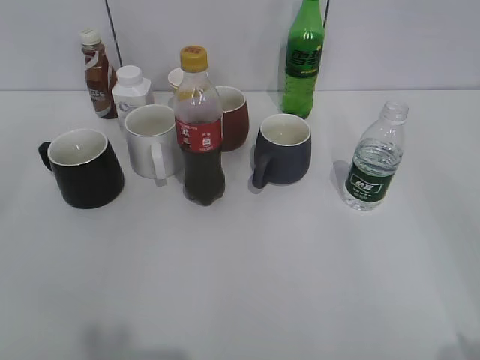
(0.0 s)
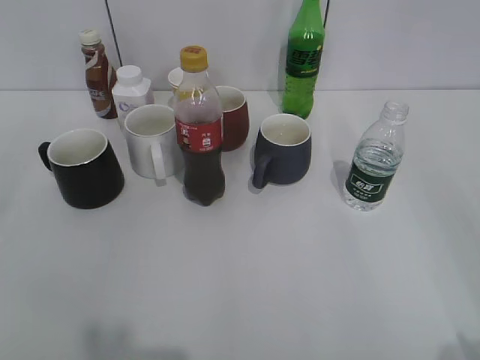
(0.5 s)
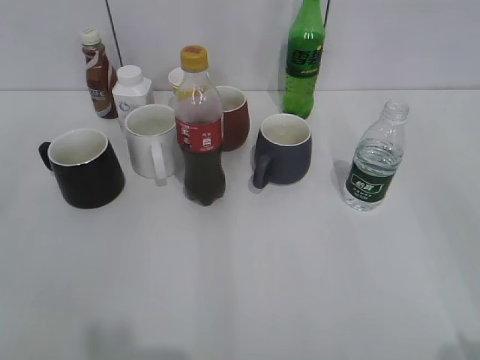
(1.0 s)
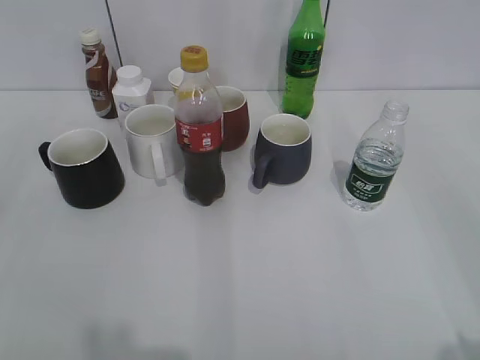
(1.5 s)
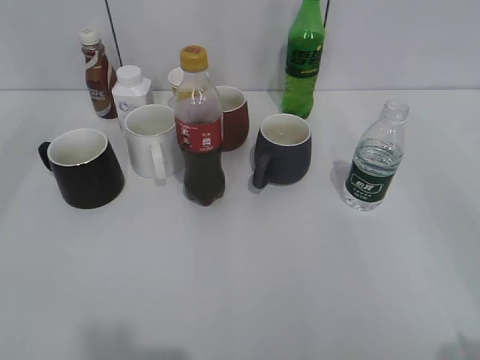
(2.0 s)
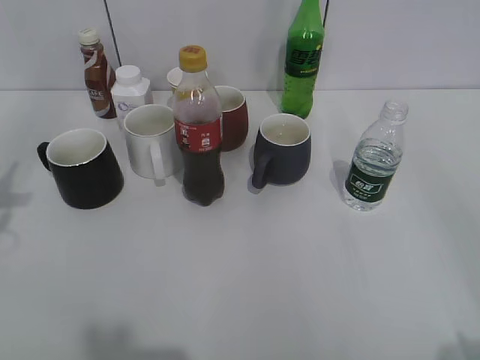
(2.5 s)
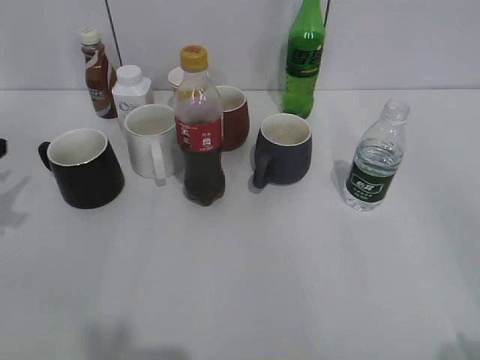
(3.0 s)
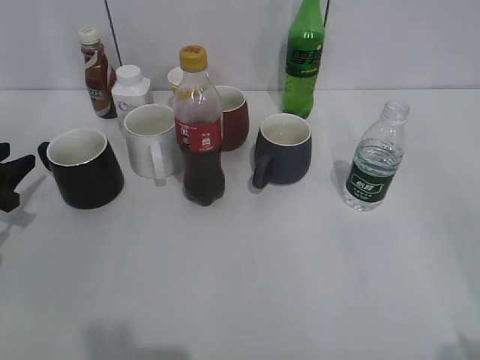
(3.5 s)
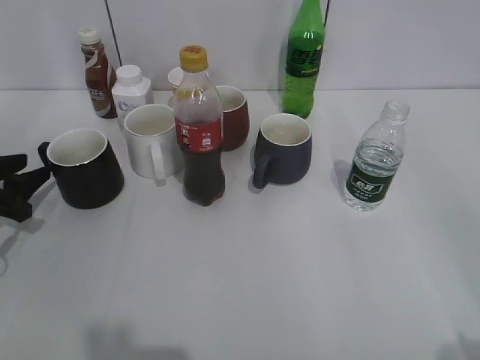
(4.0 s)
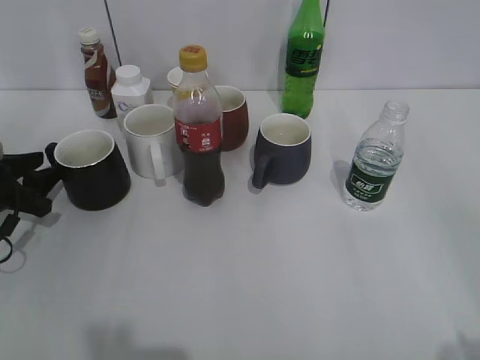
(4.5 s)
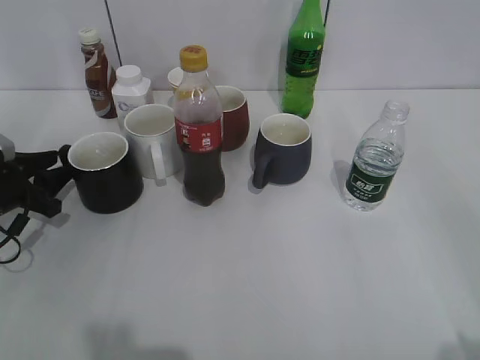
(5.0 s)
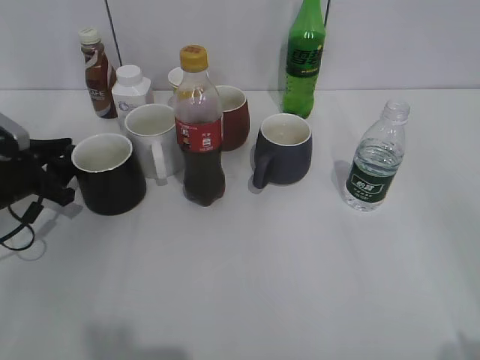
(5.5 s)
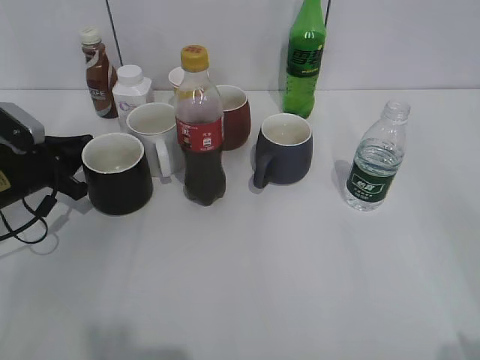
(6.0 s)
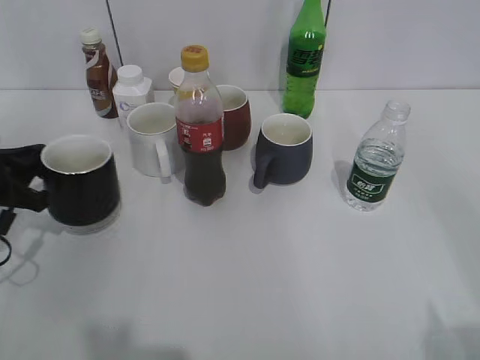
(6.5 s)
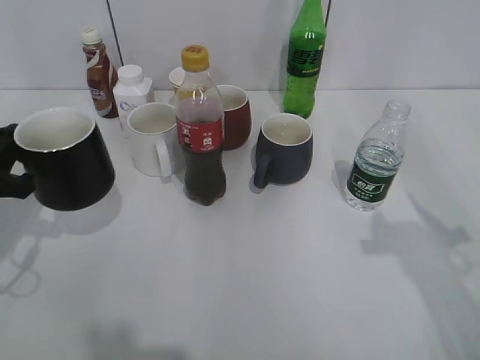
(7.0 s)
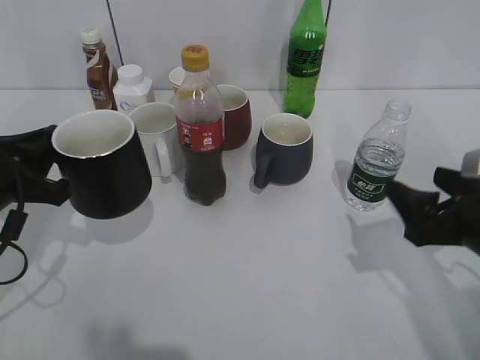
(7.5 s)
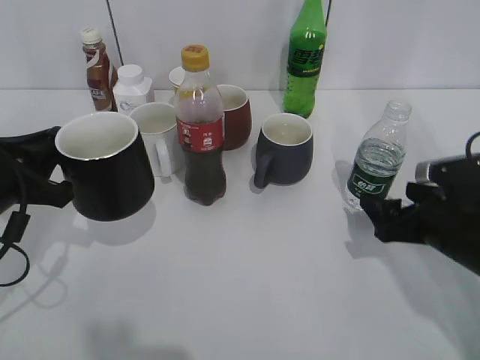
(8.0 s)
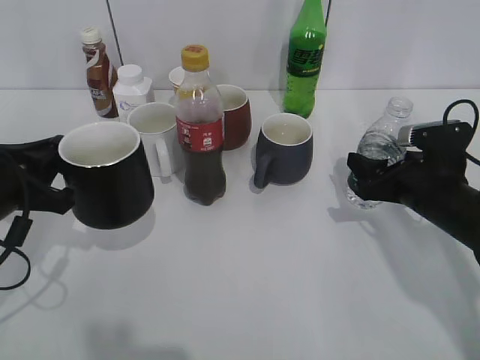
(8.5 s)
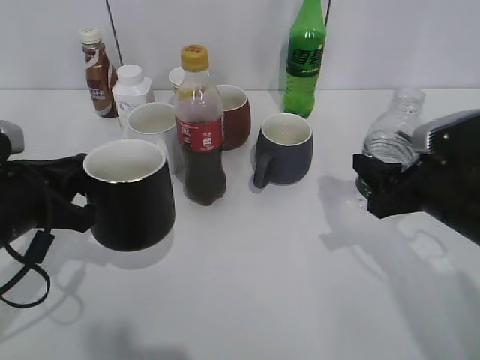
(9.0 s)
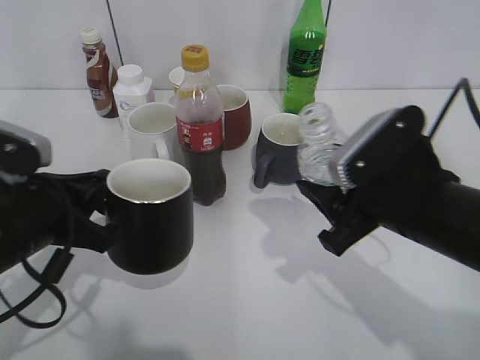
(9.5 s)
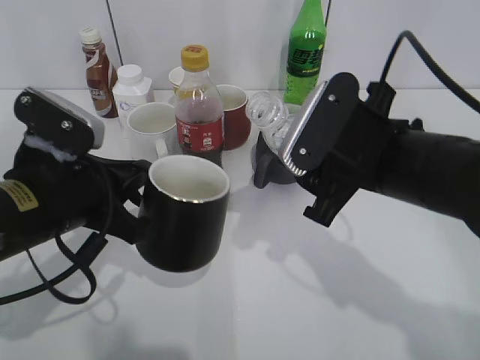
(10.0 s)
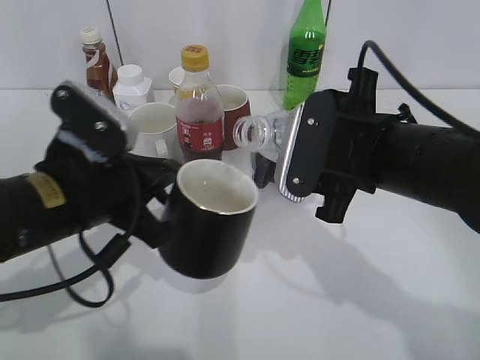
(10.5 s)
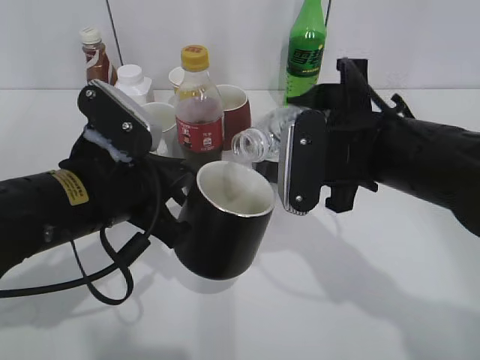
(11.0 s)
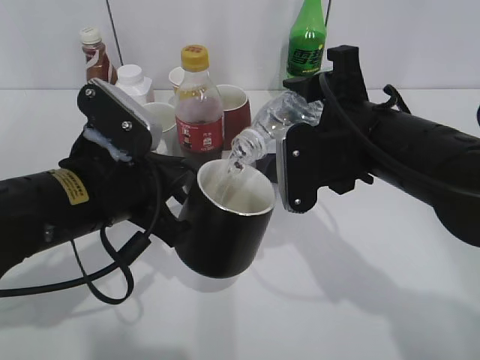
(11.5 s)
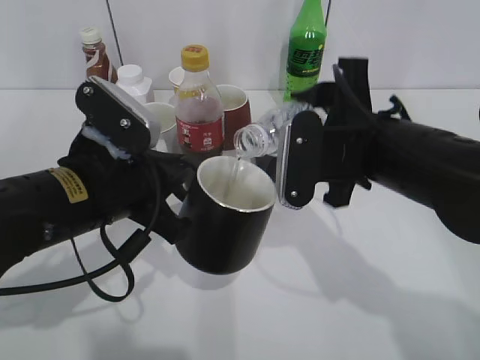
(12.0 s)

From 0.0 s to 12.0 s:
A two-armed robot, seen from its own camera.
Step, from 1.5 s to 6.0 s: Grasp the black cup with left gripper.
Step, from 6.5 s to 7.0 s: Lift the black cup with left gripper.
Step, from 7.5 s to 8.0 s: Grasp the bottle with water with right gripper.
From 2.0 s to 4.0 s: The left gripper heads downward and forward, covering about 35 cm.
From 4.0 s to 6.0 s: The left gripper heads to the right, covering approximately 5 cm, and closes its fingers.
From 6.0 s to 8.0 s: The left gripper goes approximately 15 cm backward and upward, while the right gripper goes some 30 cm forward and downward, and opens its fingers.
From 8.0 s to 10.0 s: The left gripper travels to the right by about 10 cm, while the right gripper moves to the left and upward, about 15 cm, and closes its fingers.

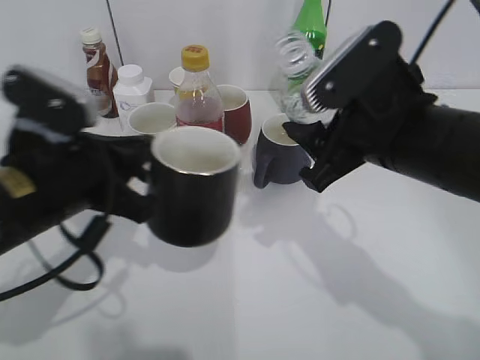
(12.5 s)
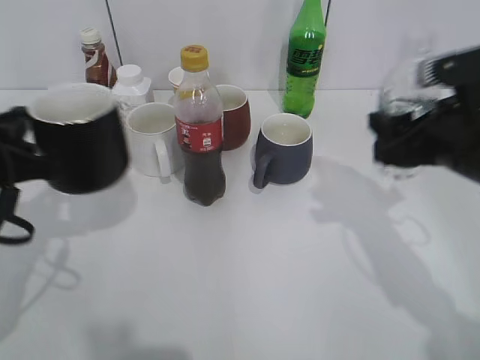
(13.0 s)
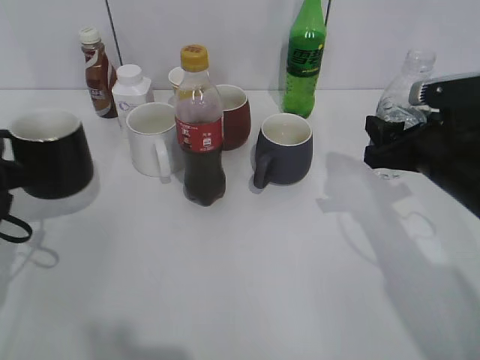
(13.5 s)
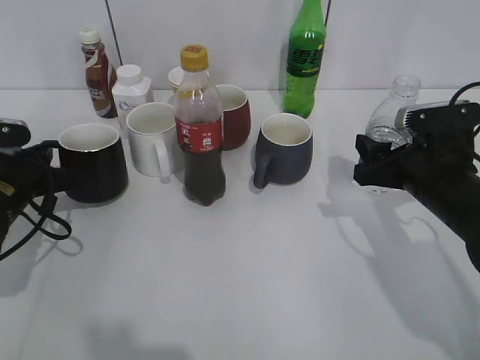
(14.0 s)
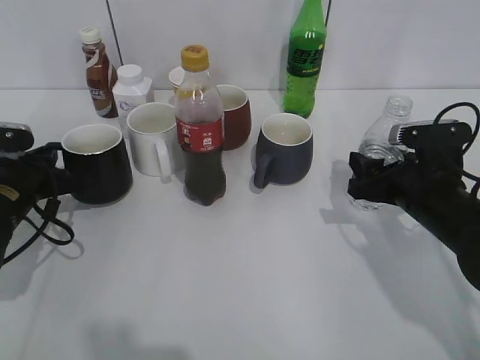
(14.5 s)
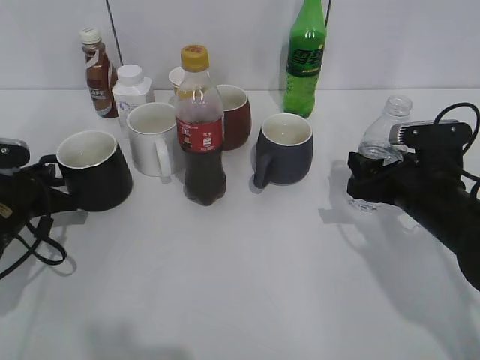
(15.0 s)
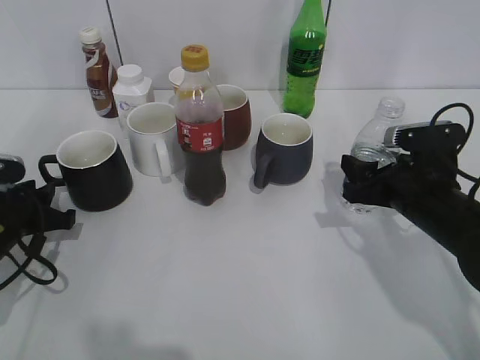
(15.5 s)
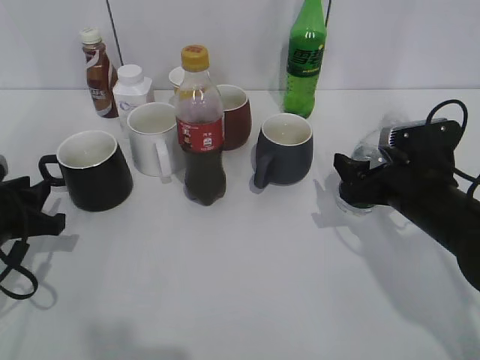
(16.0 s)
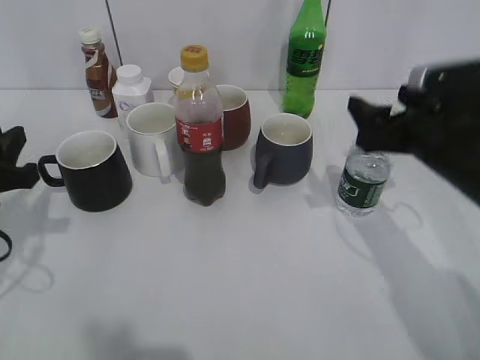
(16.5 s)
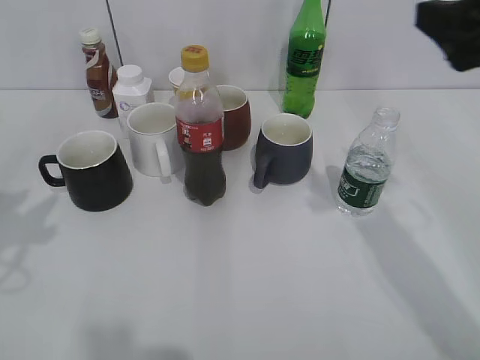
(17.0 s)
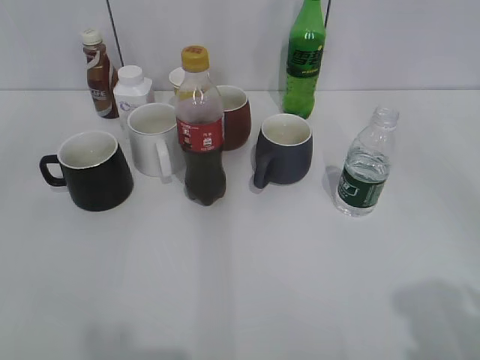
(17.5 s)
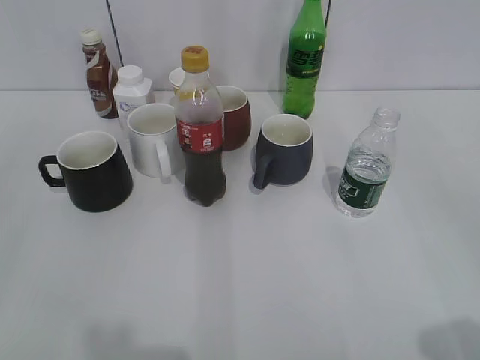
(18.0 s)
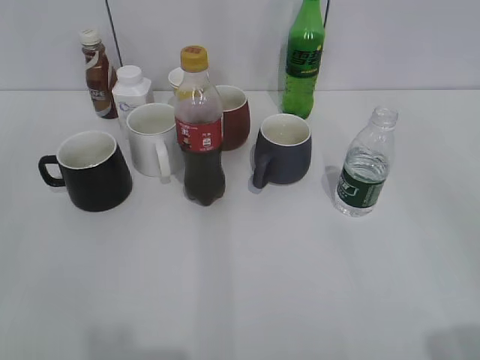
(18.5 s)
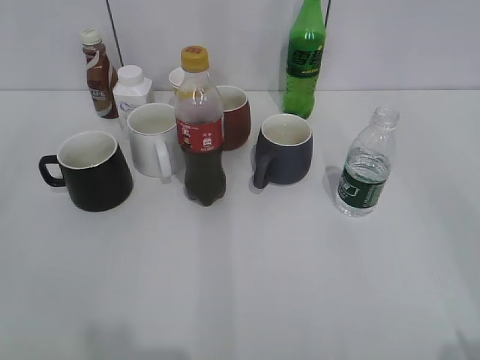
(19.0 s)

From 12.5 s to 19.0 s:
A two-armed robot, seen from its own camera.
Step, from 12.5 s to 16.0 s: Place the water bottle on the table with right gripper.
From 12.5 s to 14.5 s: The left gripper travels downward, to the left and forward by some 20 cm. Meanwhile the right gripper is displaced downward and to the right by approximately 15 cm.
From 14.5 s to 17.0 s: The right gripper heads upward, covering approximately 20 cm, and opens its fingers. Meanwhile the left gripper shifts some 25 cm upward and backward, and opens up.
From 17.0 s to 19.0 s: The right gripper goes roughly 25 cm backward.
